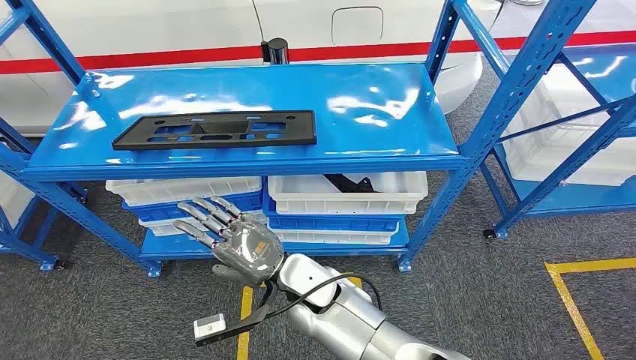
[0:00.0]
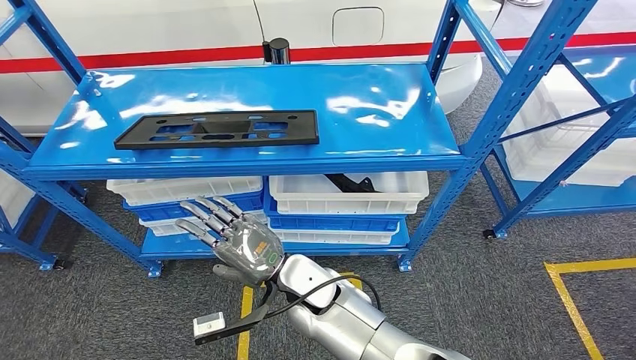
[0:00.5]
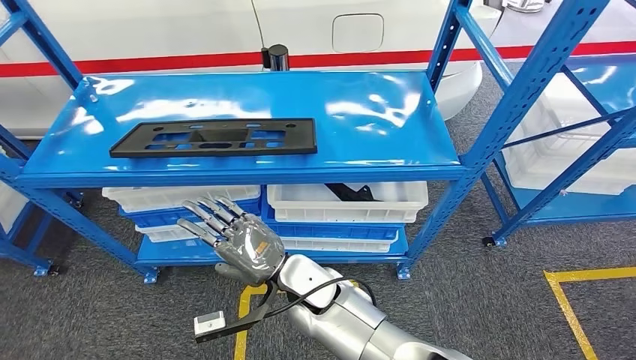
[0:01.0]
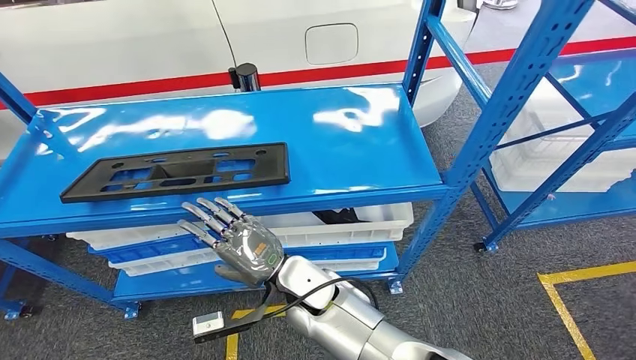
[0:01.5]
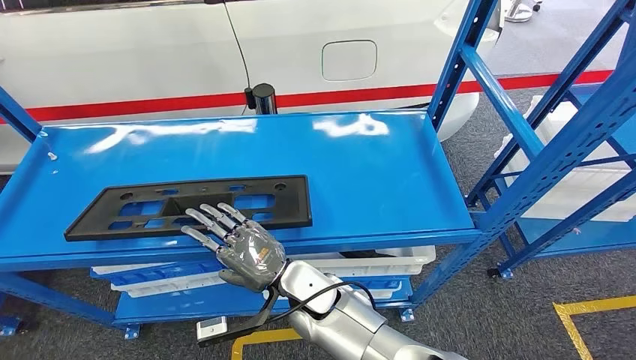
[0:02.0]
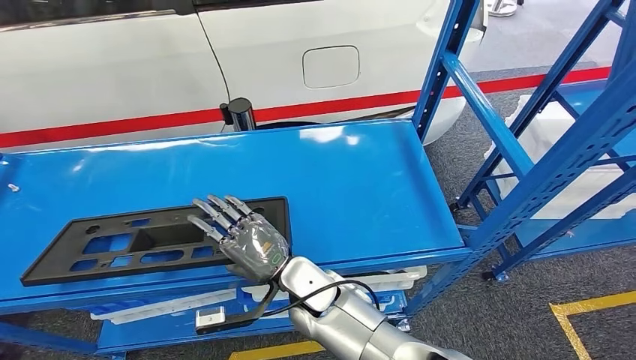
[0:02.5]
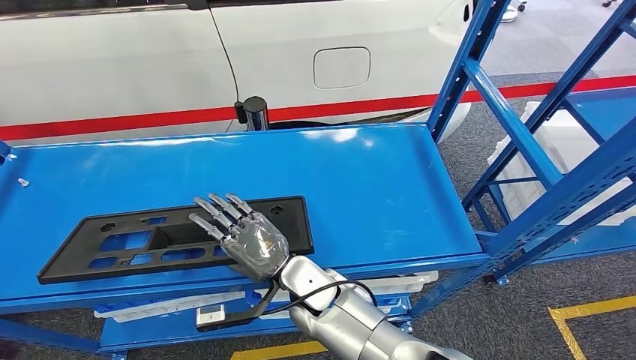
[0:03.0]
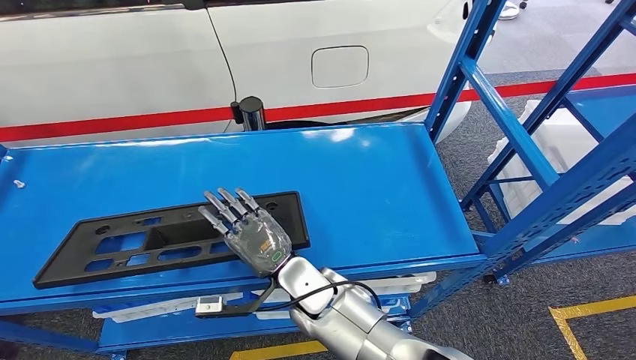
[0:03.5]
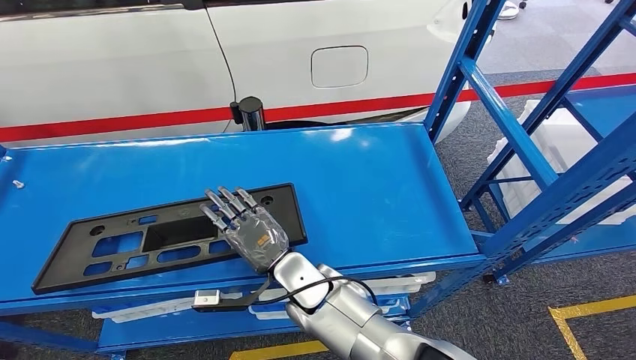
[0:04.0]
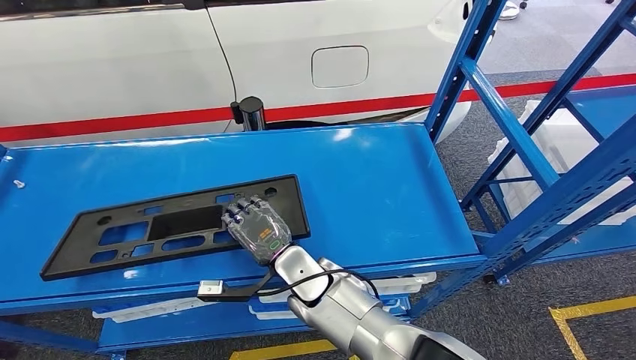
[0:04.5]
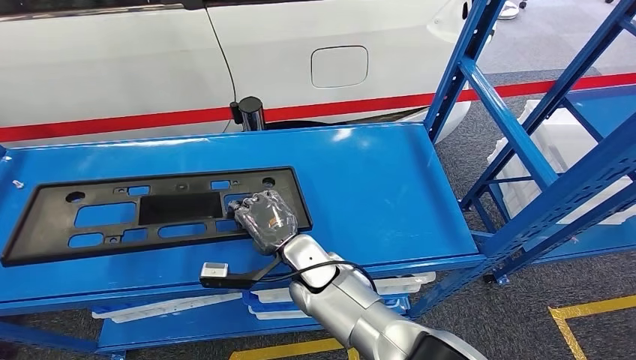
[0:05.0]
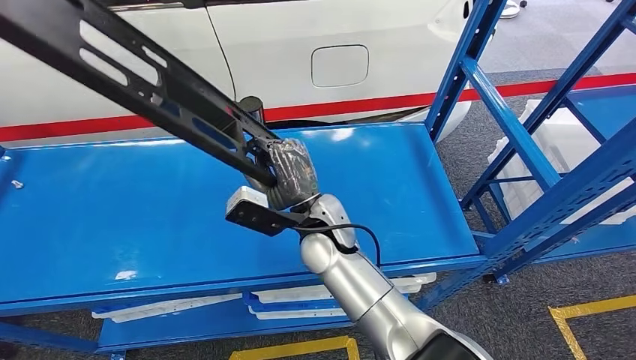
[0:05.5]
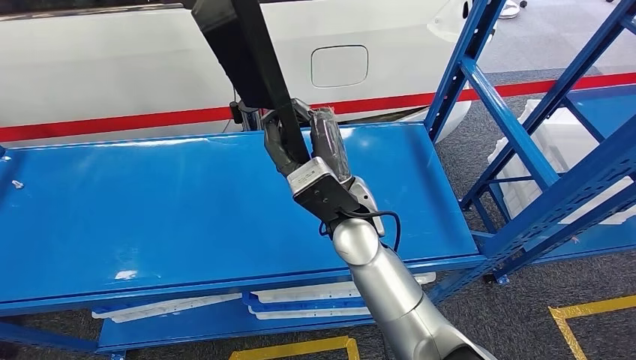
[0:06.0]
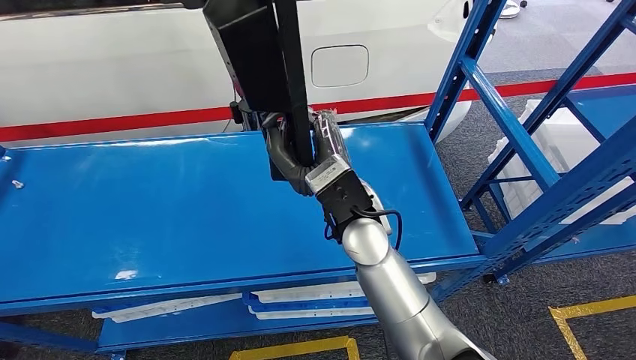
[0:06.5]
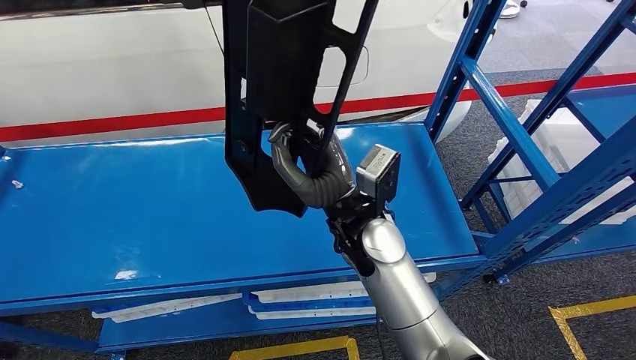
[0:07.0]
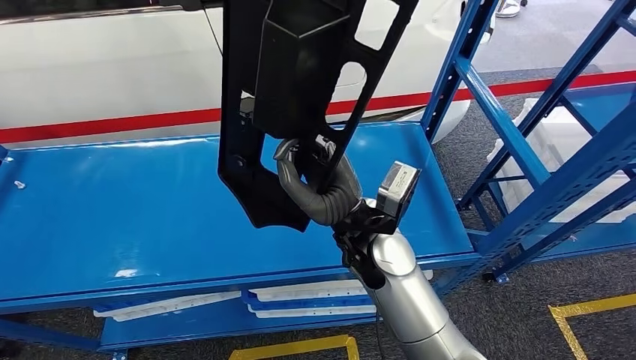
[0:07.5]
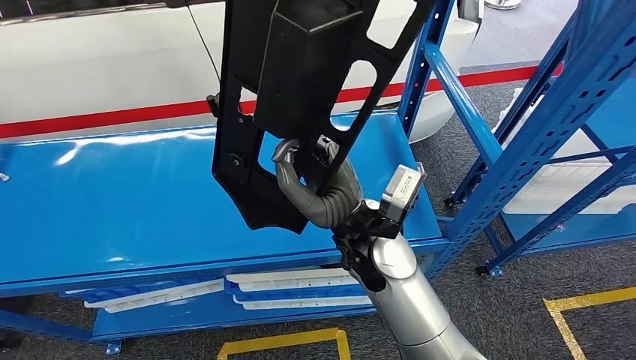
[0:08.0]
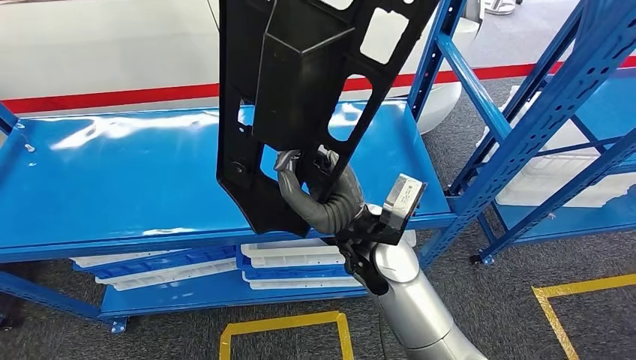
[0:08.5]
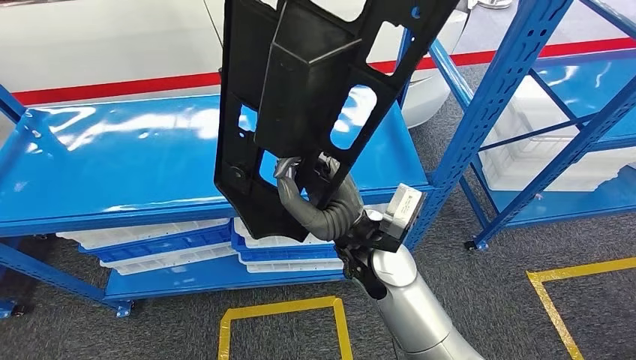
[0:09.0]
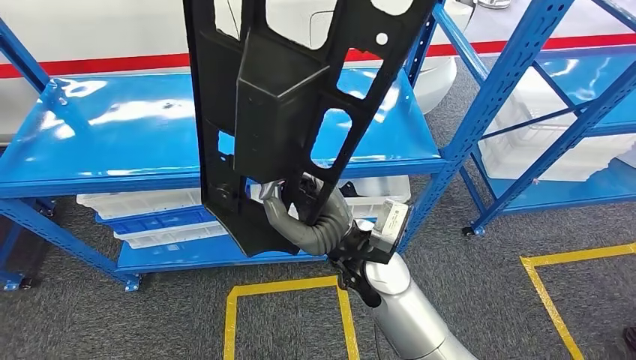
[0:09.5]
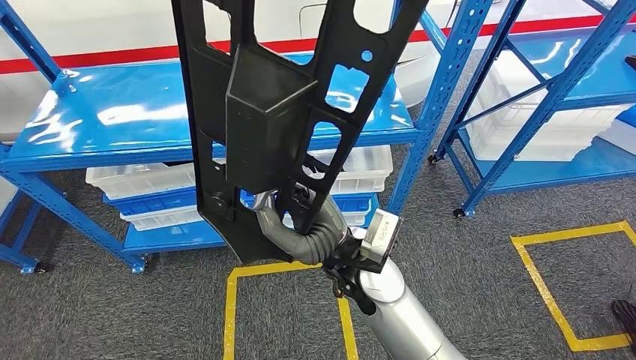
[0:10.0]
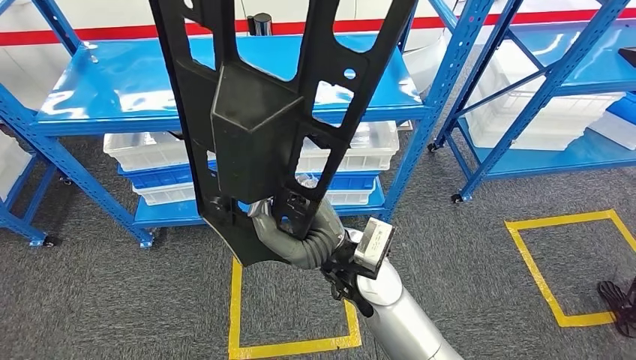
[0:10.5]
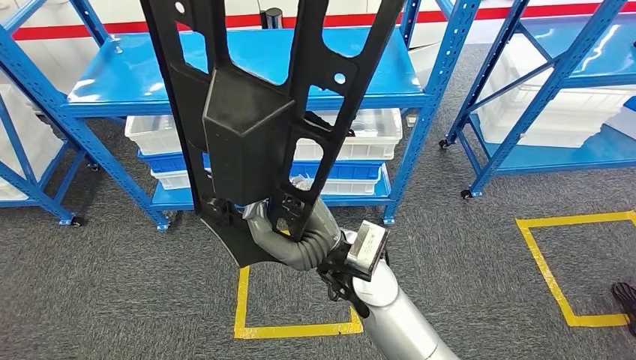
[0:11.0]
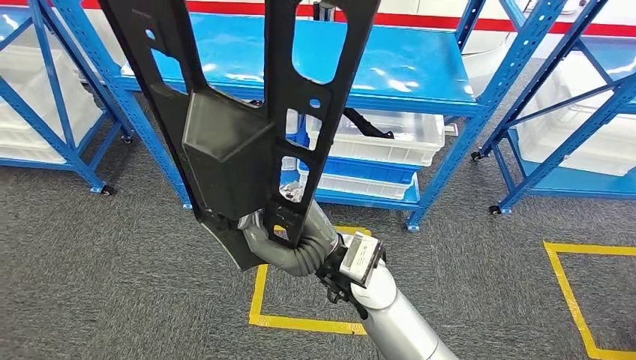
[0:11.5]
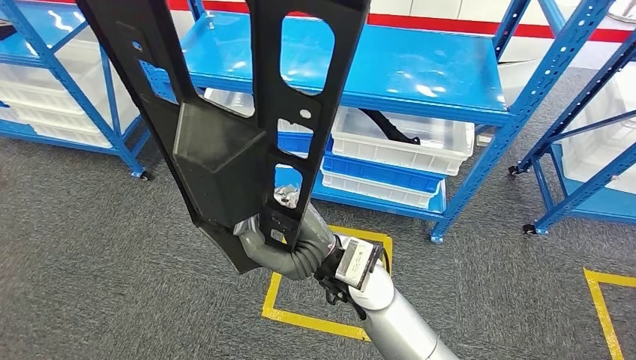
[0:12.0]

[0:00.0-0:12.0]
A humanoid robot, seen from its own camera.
Step, 0:00.0 to 0:10.5: Pick up the large material from the shelf.
0:04.0 to 0:06.0: The right hand moves upward and forward, about 15 cm.

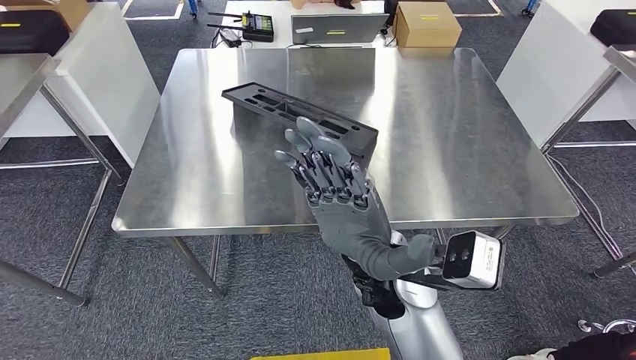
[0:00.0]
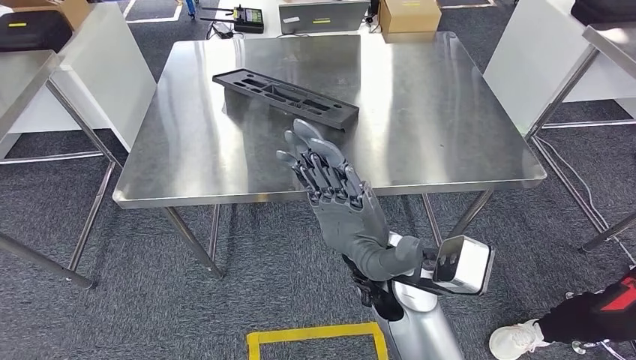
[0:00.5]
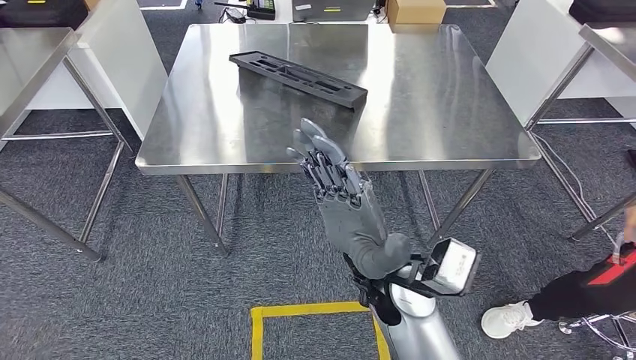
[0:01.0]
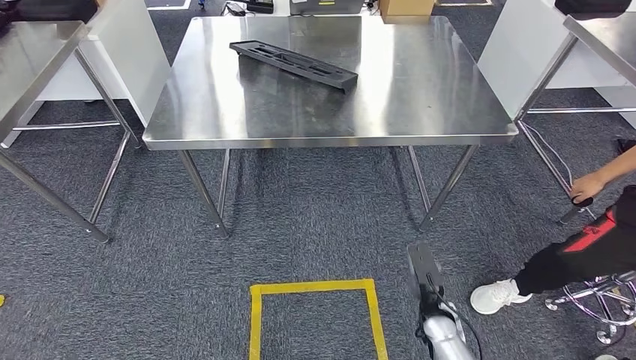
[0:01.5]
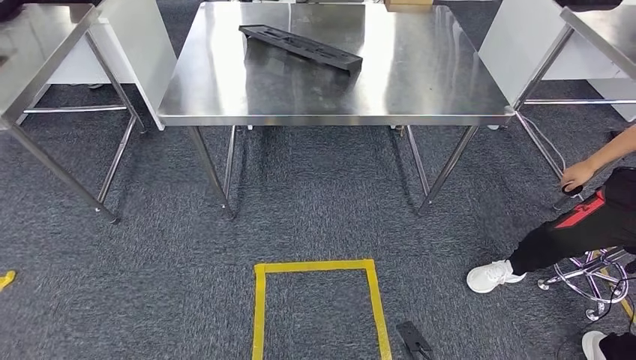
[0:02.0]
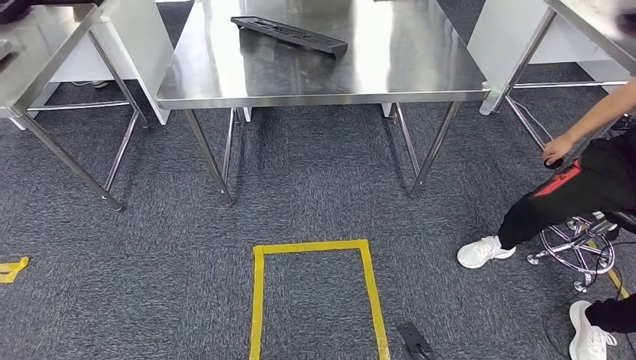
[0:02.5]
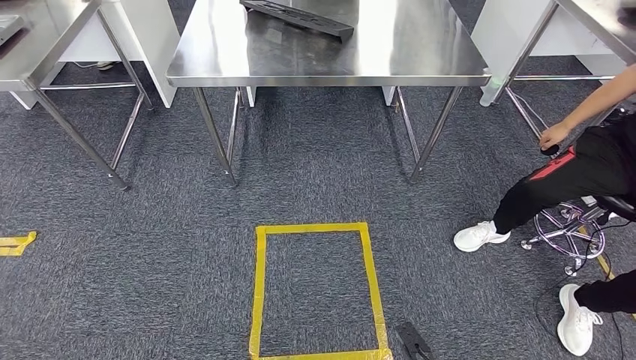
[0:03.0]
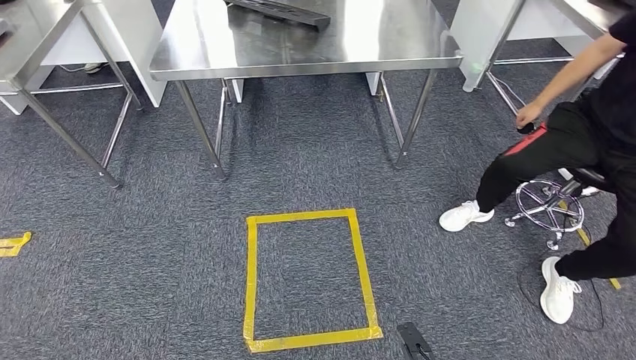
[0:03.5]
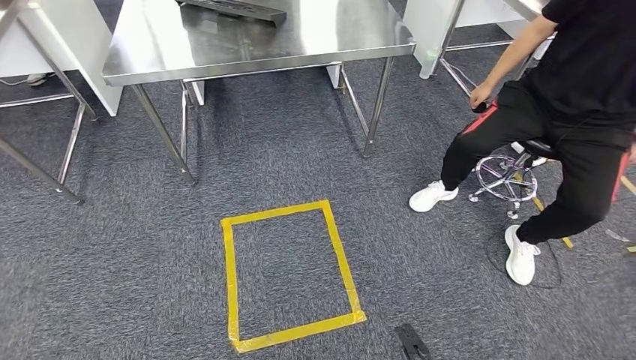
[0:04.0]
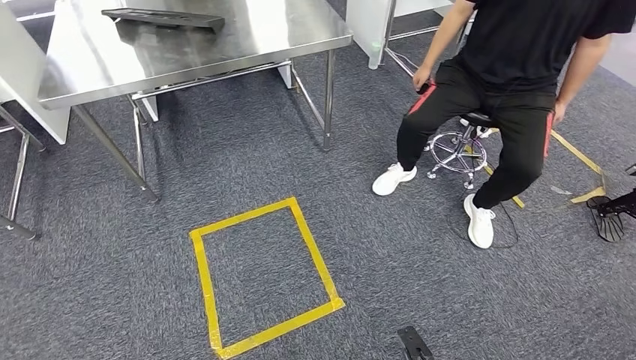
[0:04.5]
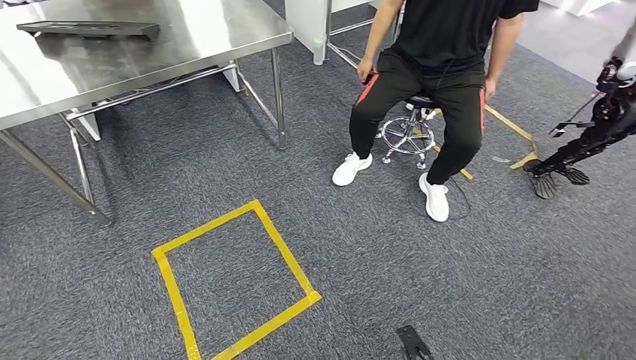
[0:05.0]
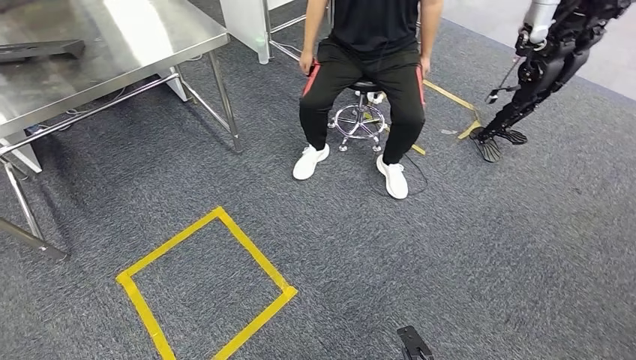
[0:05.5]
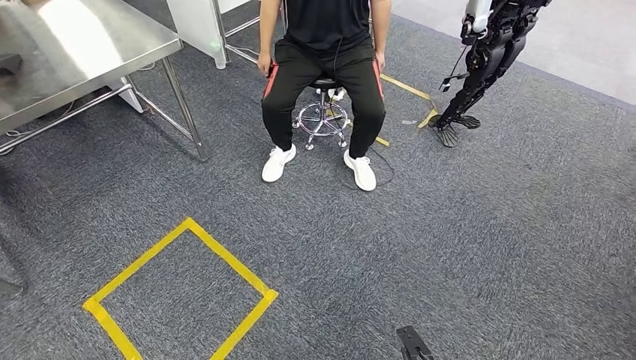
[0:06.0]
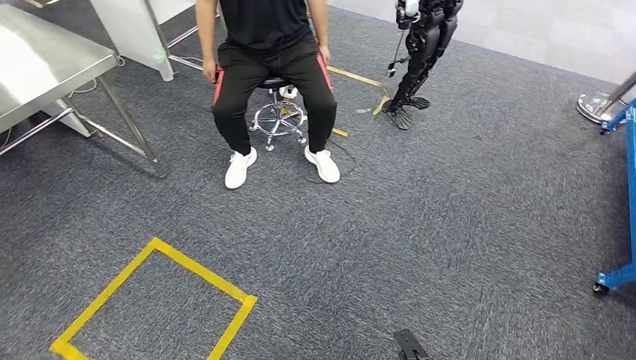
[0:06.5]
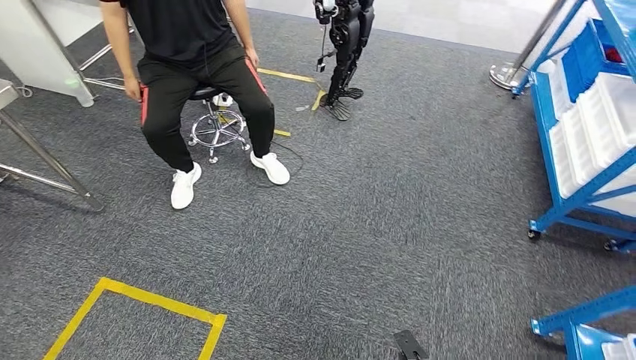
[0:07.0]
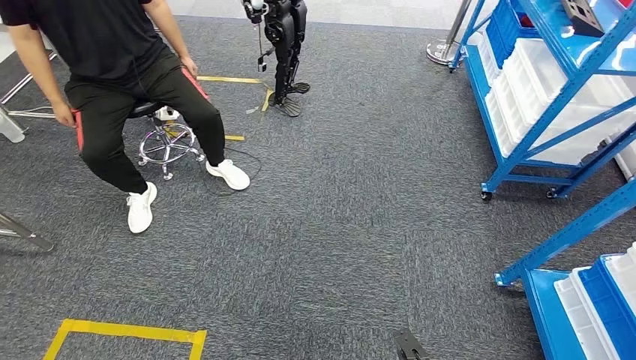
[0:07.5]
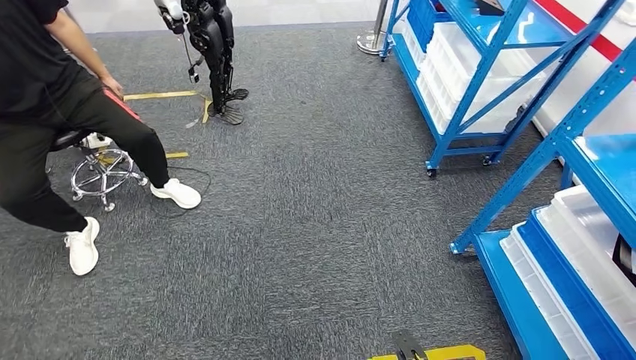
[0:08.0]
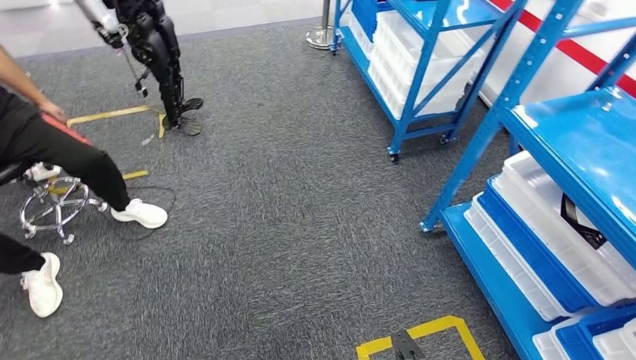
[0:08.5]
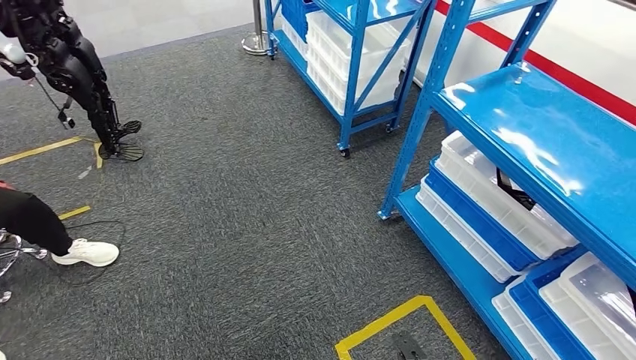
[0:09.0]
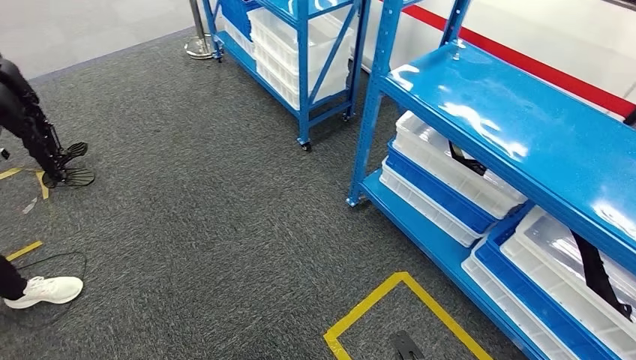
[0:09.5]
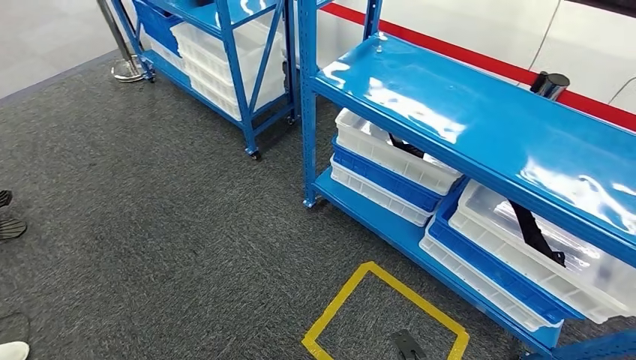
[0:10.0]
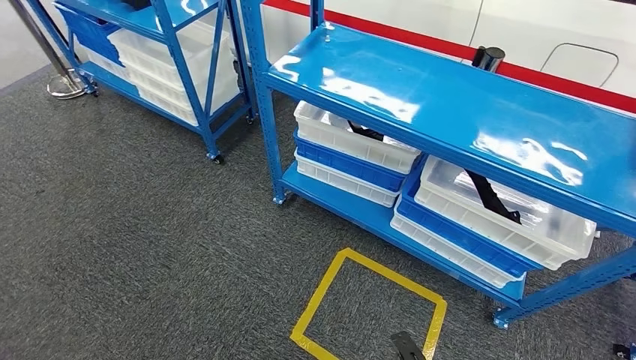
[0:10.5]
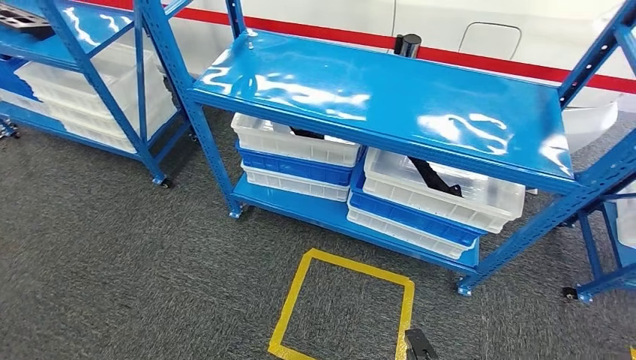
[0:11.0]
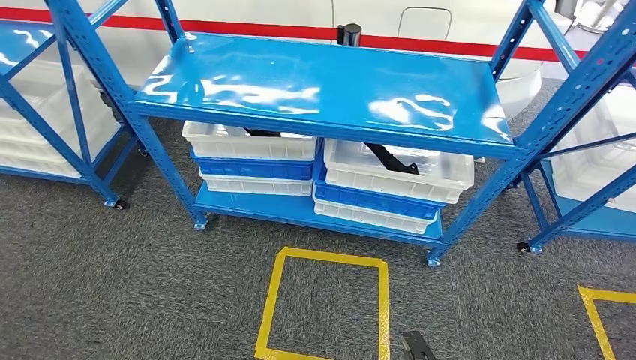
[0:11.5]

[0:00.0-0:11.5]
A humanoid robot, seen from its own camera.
Step, 0:00.0 to 0:02.5: Insert the large material into the corresponding slot on the workbench.
